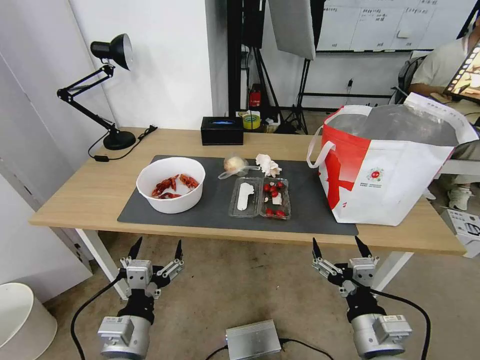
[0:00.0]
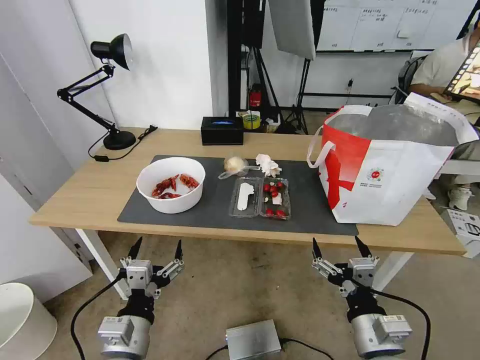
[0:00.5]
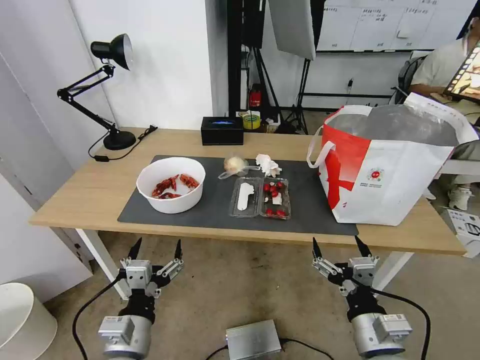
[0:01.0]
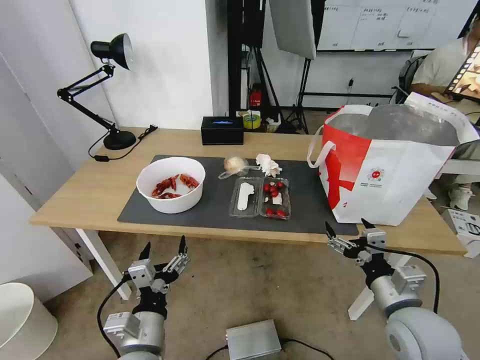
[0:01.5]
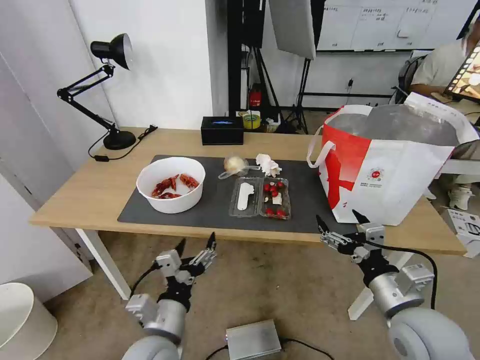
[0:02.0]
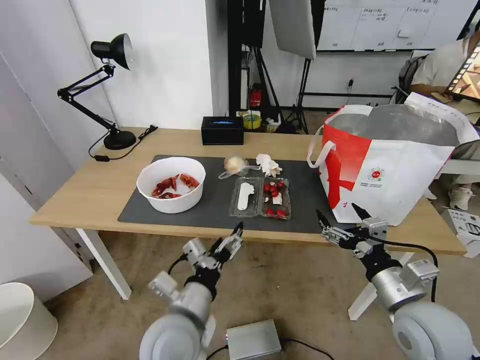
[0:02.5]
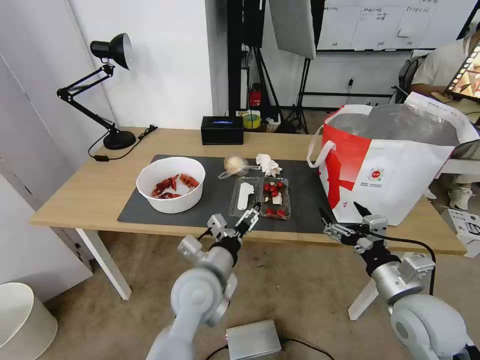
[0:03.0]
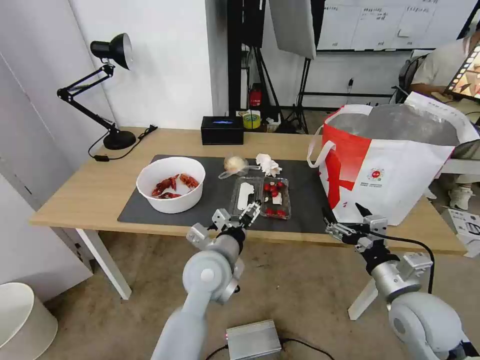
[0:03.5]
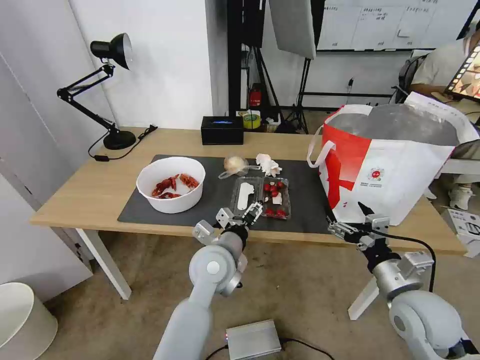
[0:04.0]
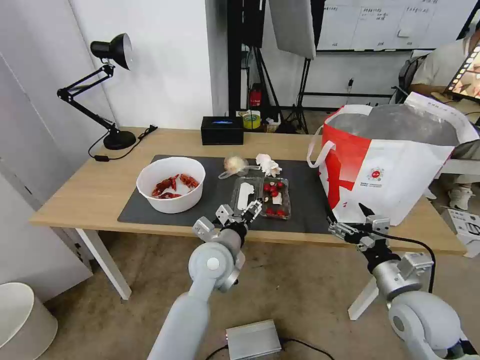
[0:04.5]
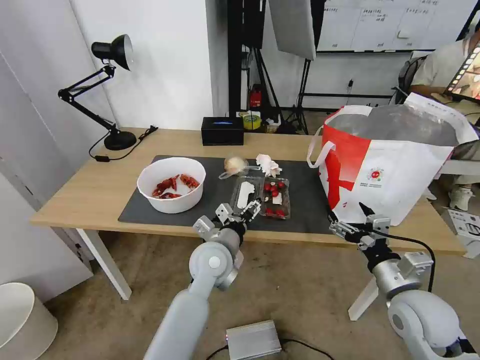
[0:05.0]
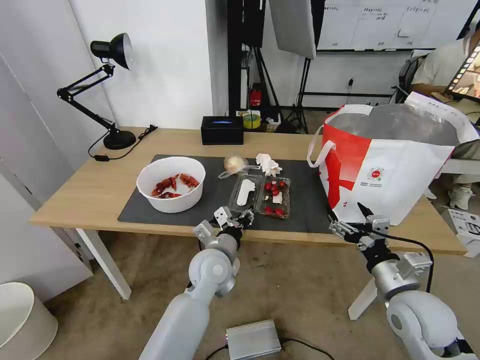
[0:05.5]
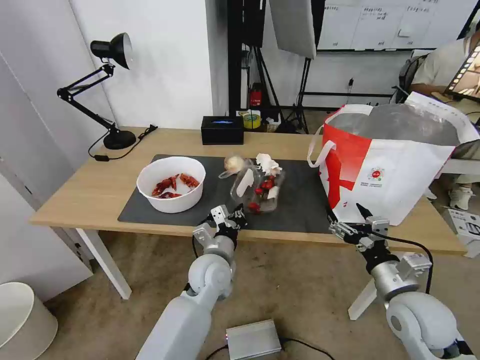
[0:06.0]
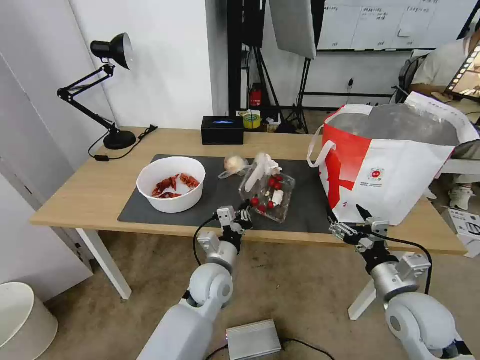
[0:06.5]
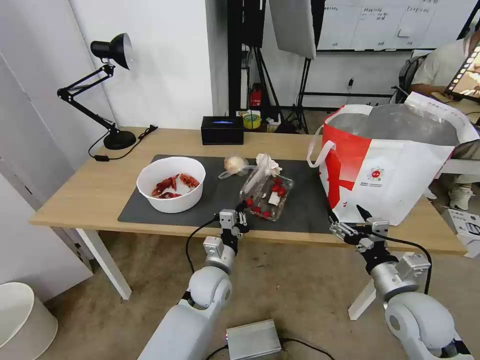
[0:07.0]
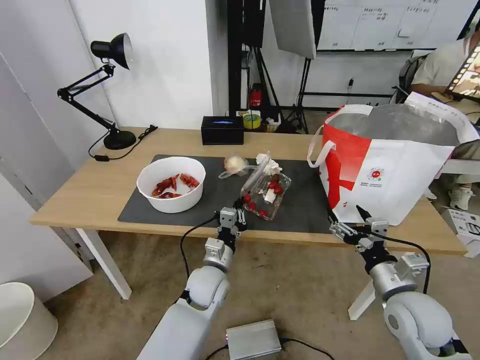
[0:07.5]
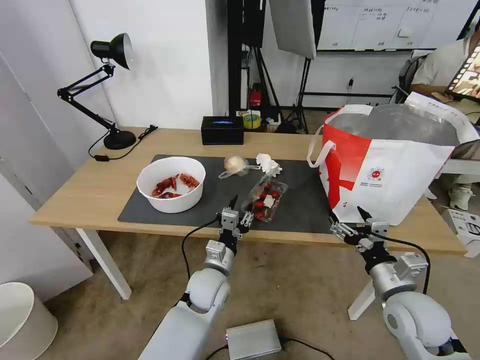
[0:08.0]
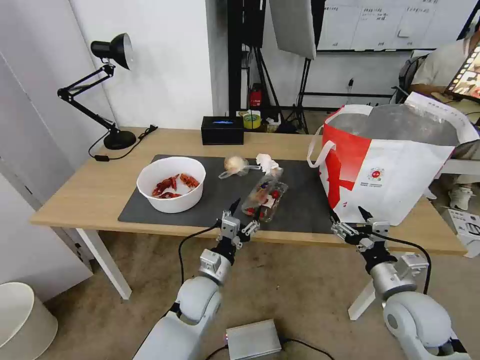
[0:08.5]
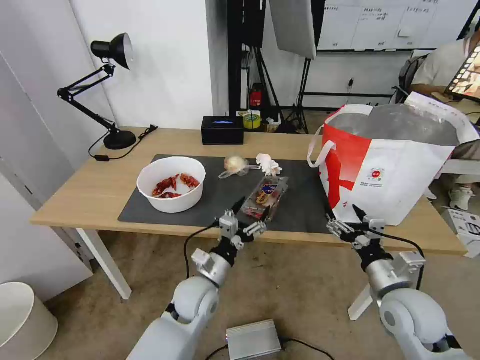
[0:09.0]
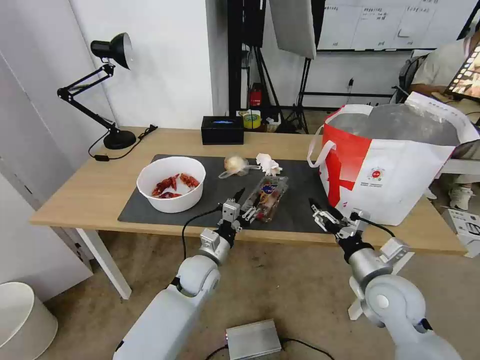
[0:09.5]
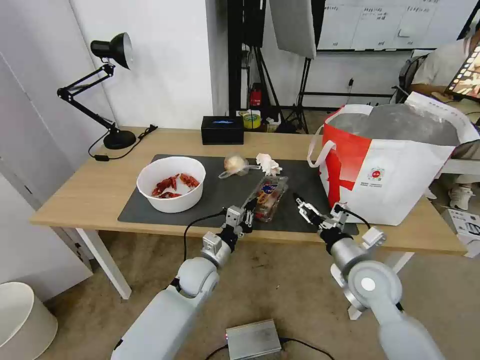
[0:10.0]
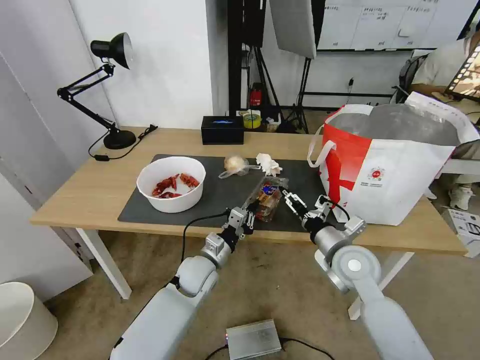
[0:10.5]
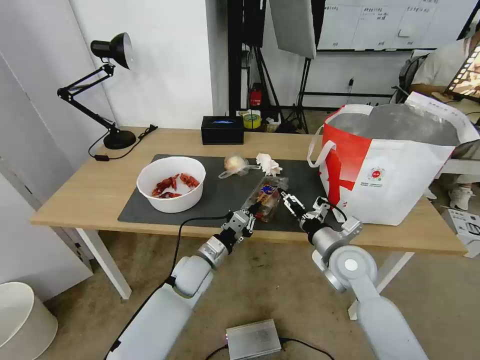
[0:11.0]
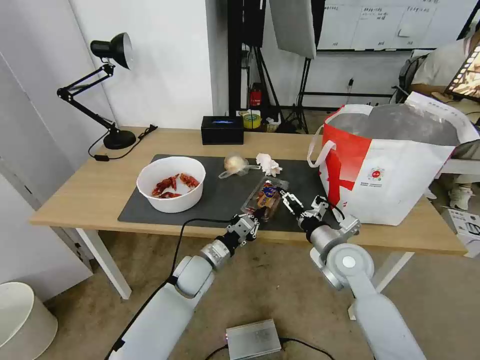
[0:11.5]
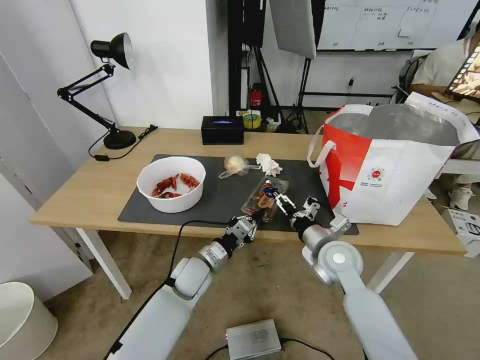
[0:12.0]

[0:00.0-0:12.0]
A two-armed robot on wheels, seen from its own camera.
Task of the whole recording: Pick up the trash from the table and place it into the takeout bag.
0:02.0 to 0:04.0: The right gripper ends up about 5 cm from where it was; the left gripper is displaced forward and to the right by about 20 cm.
0:04.0 to 0:06.0: The left gripper goes approximately 5 cm downward, and closes.
0:06.0 to 0:08.0: The left gripper opens.
0:08.0 to 0:10.0: The left gripper closes its fingers; the right gripper heads forward and to the left, covering approximately 10 cm.
0:10.0 to 0:12.0: The right gripper goes some 5 cm forward.

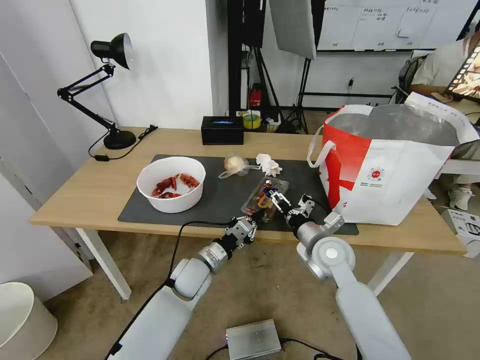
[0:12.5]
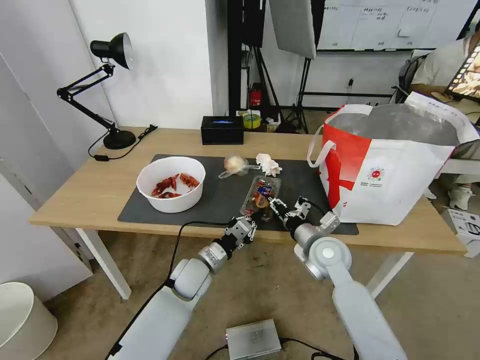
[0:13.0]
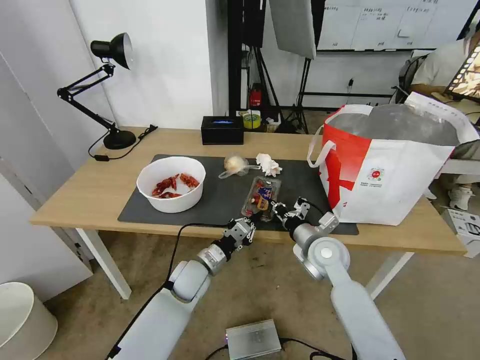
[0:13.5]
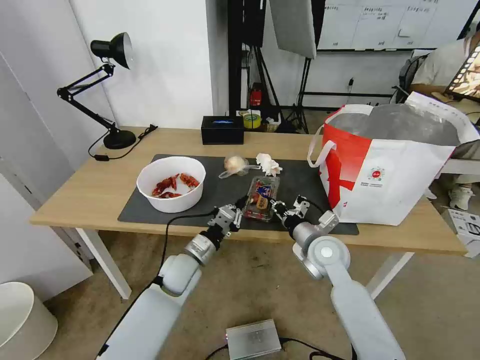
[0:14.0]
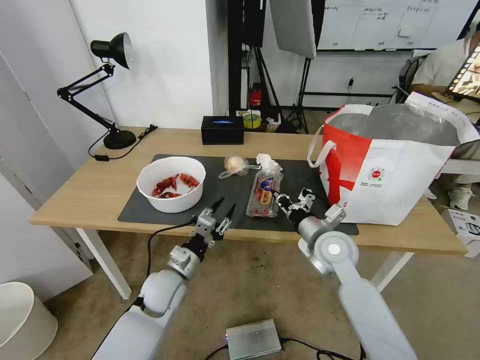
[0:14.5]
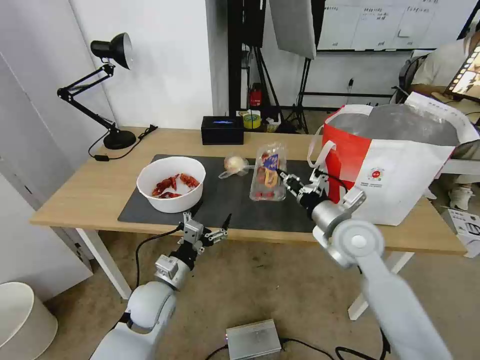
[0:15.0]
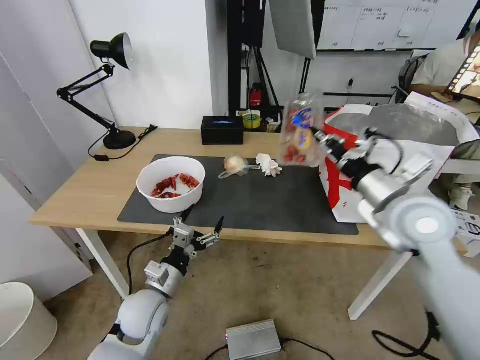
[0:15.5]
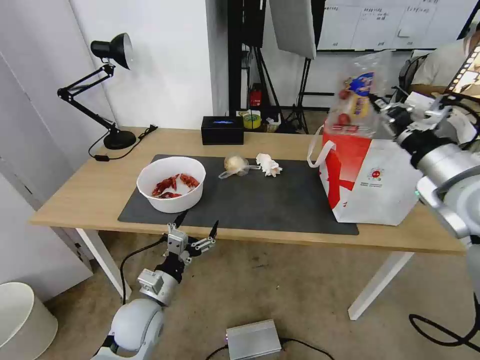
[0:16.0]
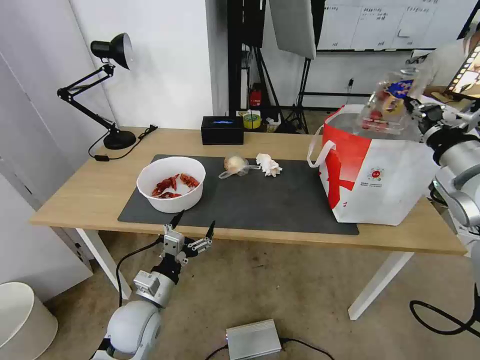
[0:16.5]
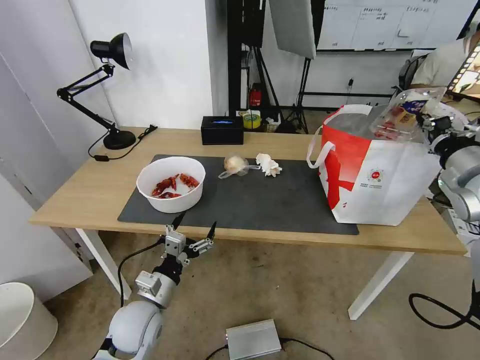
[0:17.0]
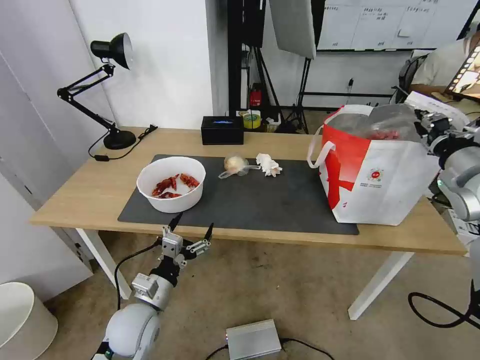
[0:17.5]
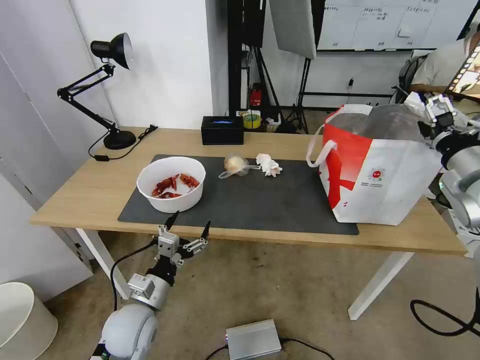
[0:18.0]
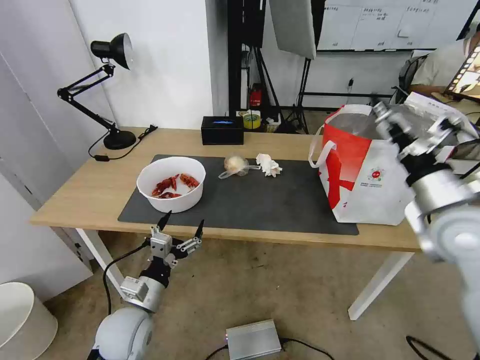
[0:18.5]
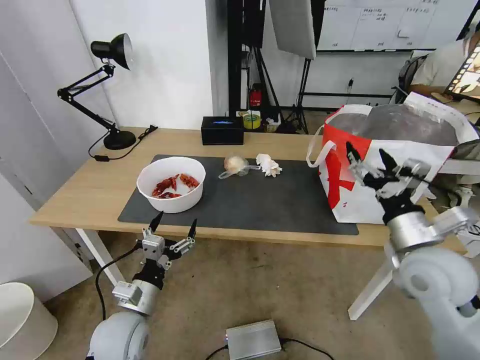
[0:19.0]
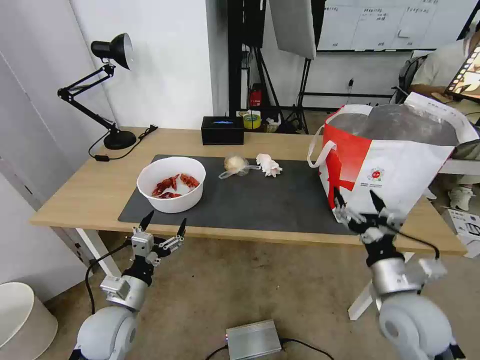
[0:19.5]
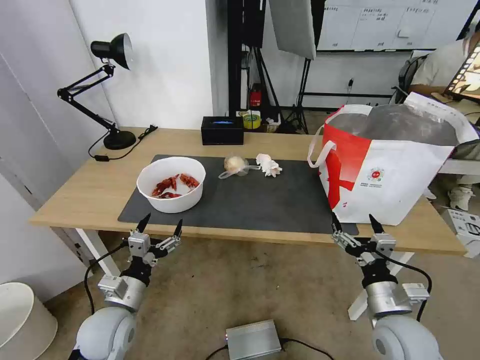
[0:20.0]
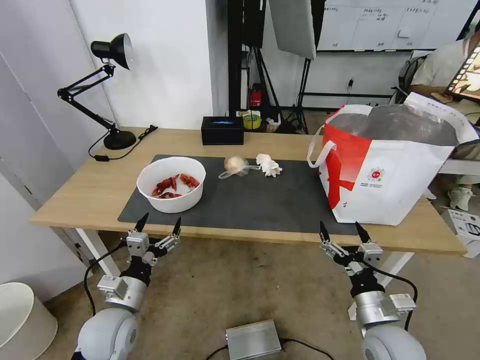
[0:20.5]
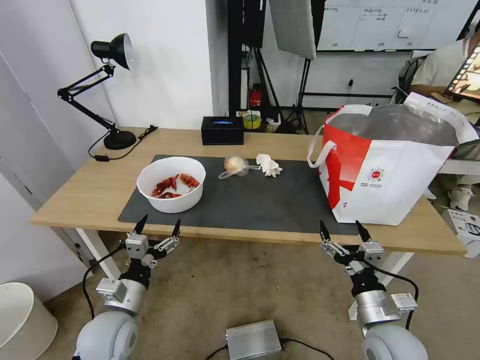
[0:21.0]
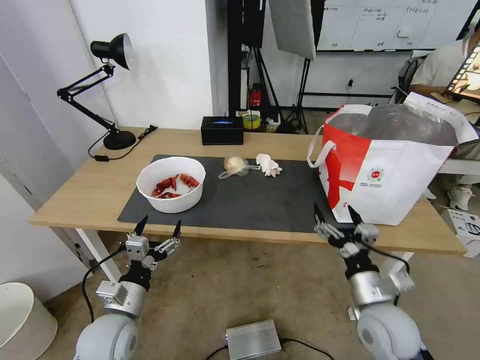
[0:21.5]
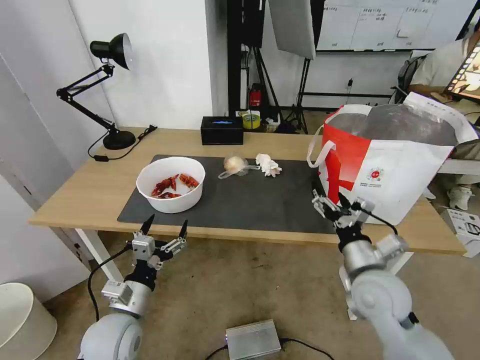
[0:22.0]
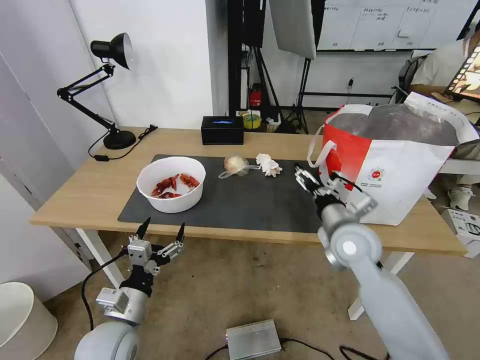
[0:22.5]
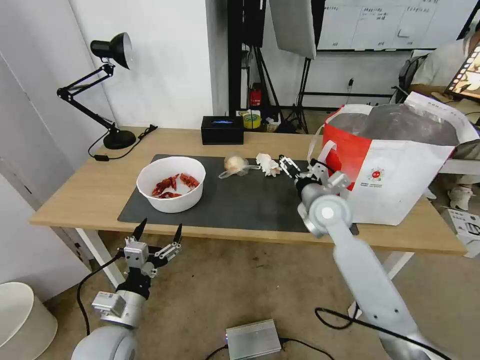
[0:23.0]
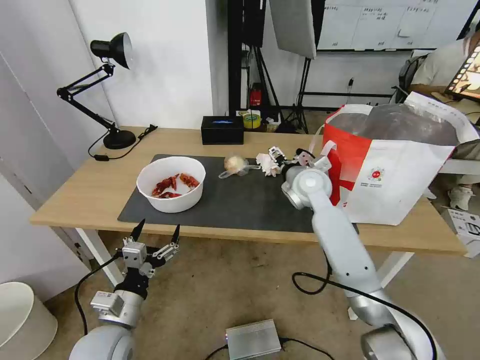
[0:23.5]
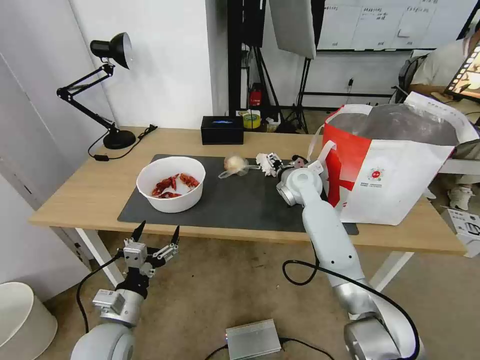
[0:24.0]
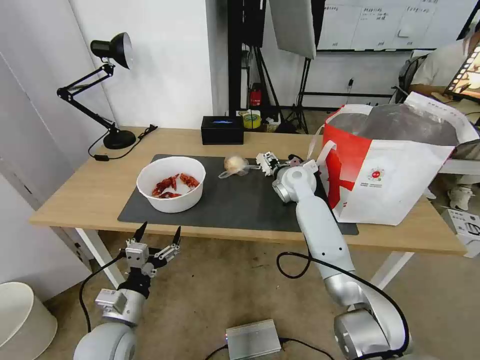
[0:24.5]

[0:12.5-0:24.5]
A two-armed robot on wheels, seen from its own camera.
Task of the whole recording: Pick up the trash from the table and place it into the takeout bag.
0:12.5 to 0:14.5: The right gripper closes; the left gripper heads to the left, covering roughly 5 cm, and opens up.
0:14.5 to 0:16.5: The left gripper travels backward by about 10 cm, and opens; the right gripper goes approximately 30 cm upward and to the right.
0:16.5 to 0:18.5: The right gripper heads to the left, covering roughly 5 cm, and opens up.
0:18.5 to 0:20.5: The right gripper goes some 25 cm downward and backward.
0:20.5 to 0:22.5: The right gripper shifts roughly 20 cm forward and upward.
0:22.5 to 0:24.5: The right gripper heads forward, covering some 20 cm.

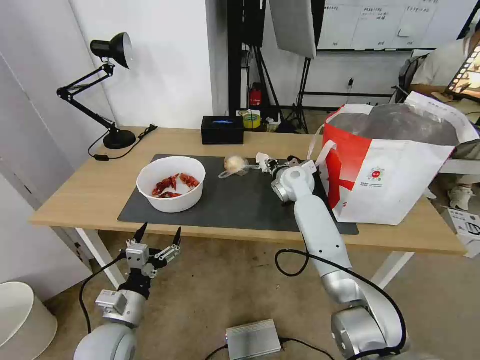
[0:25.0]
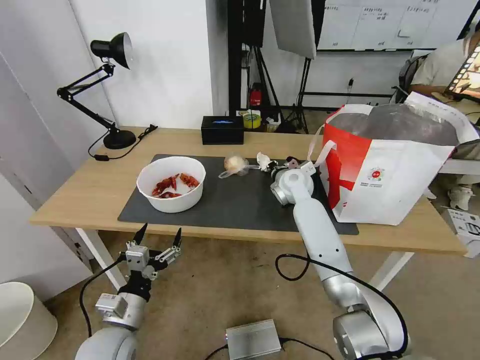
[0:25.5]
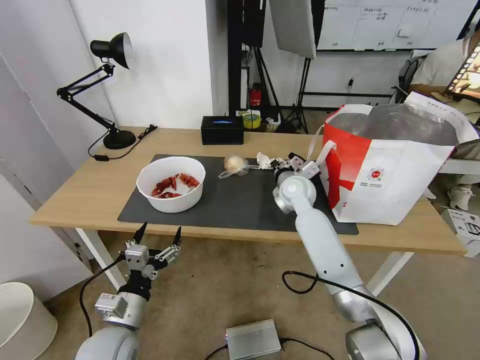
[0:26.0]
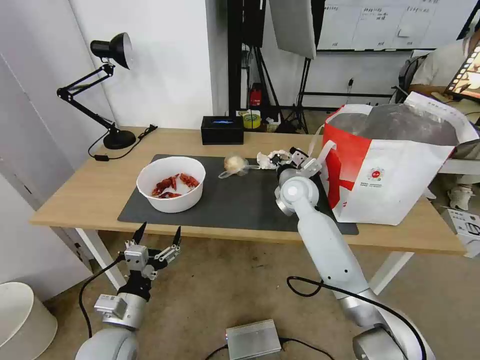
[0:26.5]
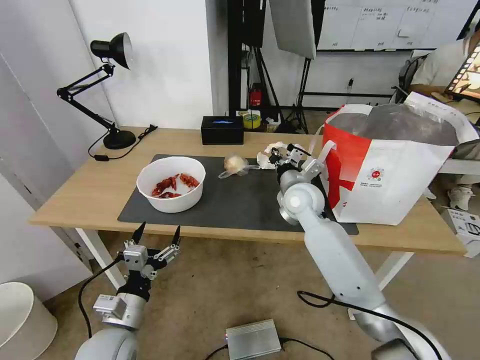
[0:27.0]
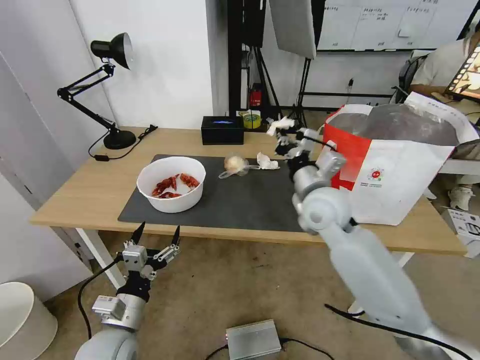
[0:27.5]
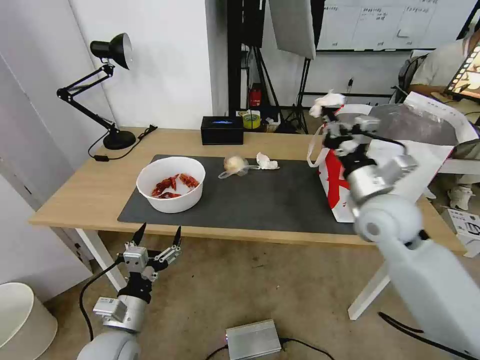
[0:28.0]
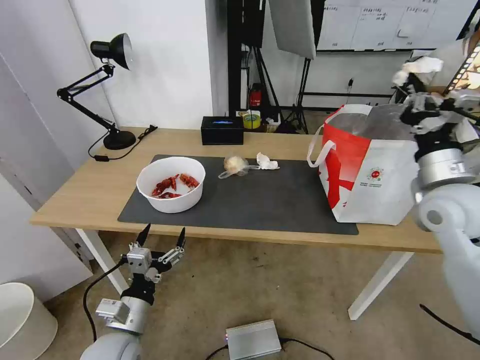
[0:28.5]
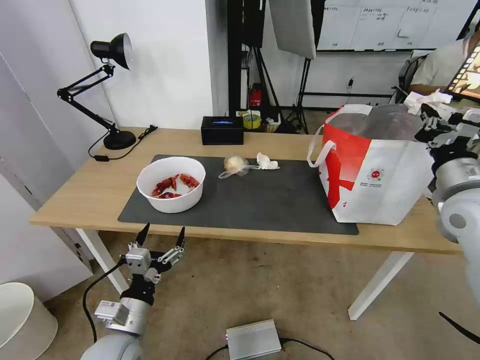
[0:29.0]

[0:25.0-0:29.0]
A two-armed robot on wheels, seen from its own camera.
Task of the whole recording: Pick up the trash from the table and place it into the takeout bag.
0:25.0 to 0:27.0: The right gripper is displaced backward by approximately 10 cm, and closes.
0:27.0 to 0:29.0: The right gripper is displaced to the right, backward and upward by about 30 cm.
